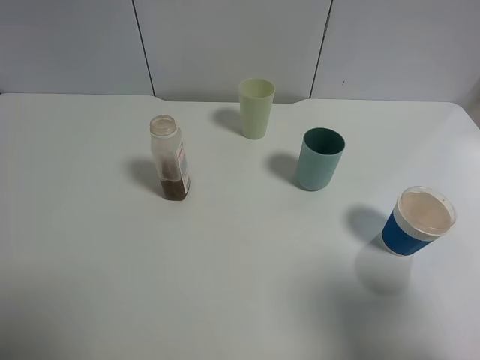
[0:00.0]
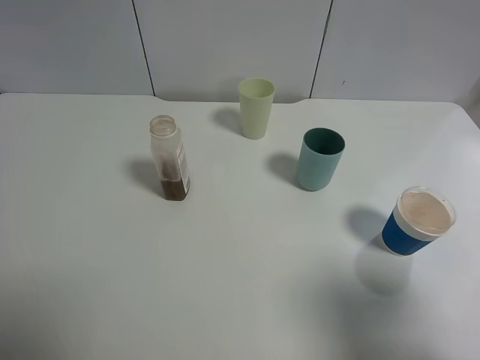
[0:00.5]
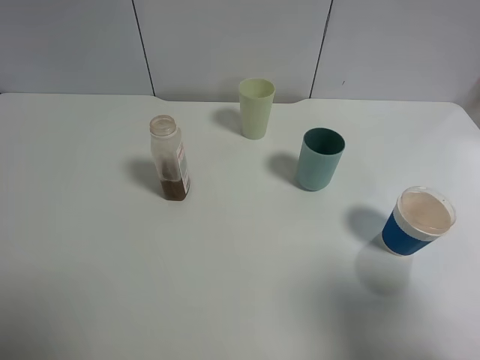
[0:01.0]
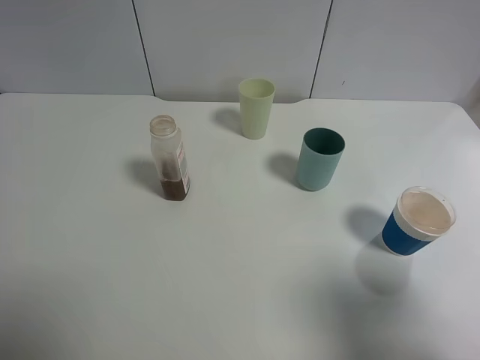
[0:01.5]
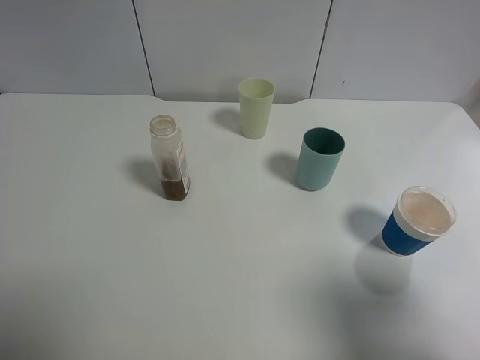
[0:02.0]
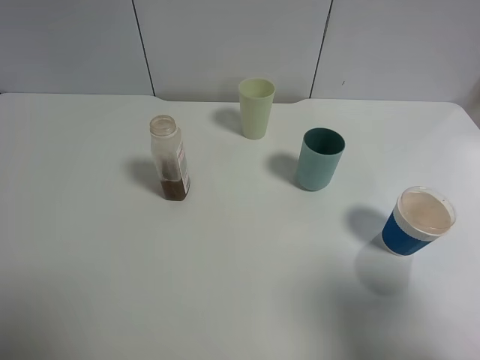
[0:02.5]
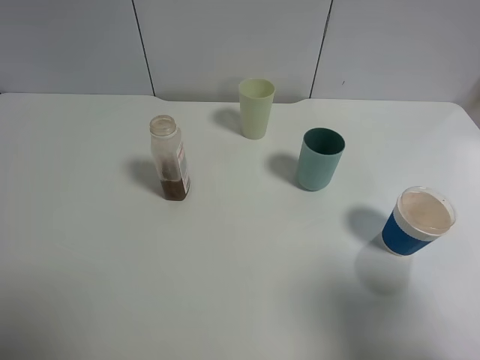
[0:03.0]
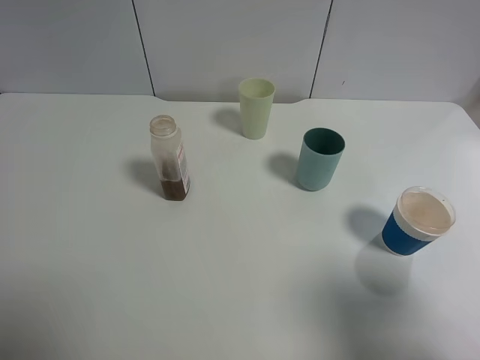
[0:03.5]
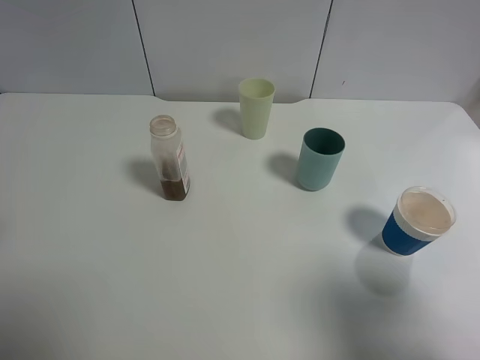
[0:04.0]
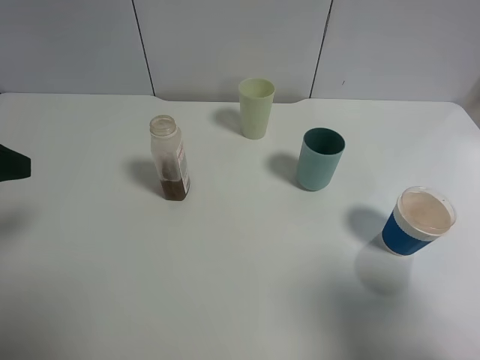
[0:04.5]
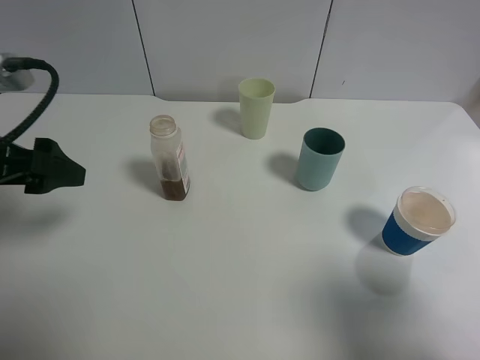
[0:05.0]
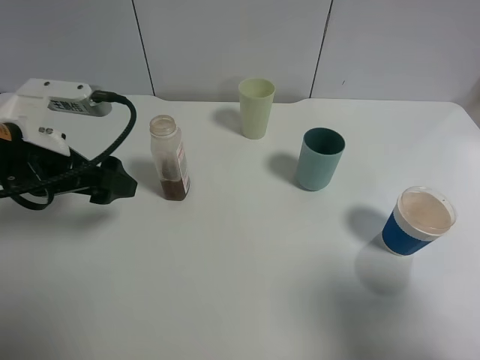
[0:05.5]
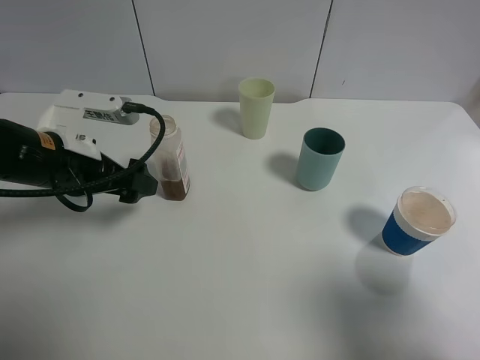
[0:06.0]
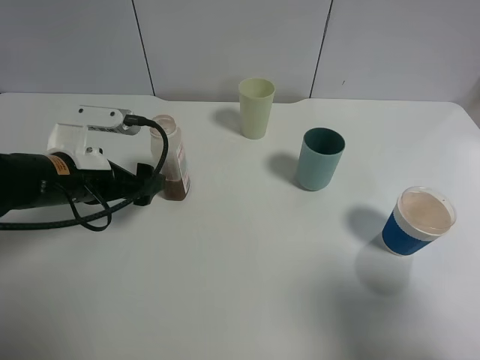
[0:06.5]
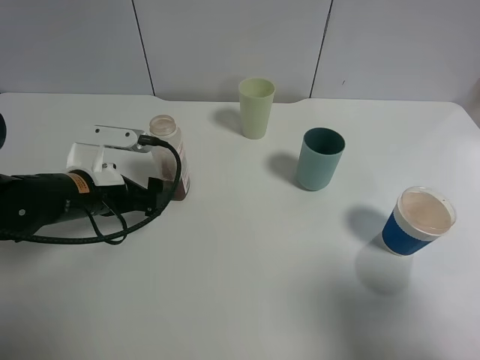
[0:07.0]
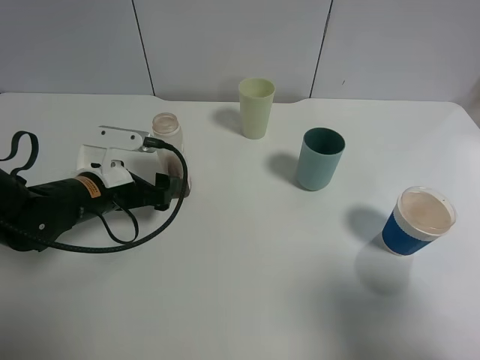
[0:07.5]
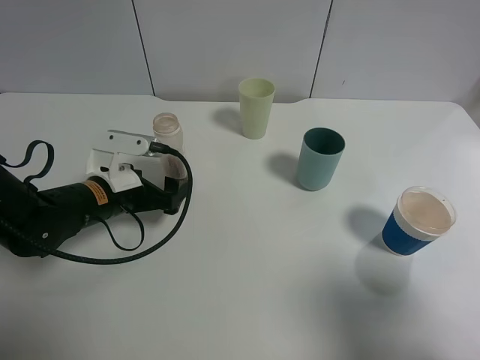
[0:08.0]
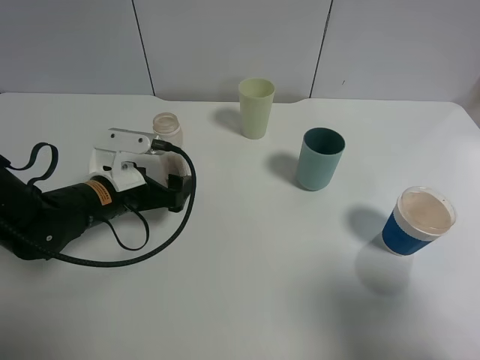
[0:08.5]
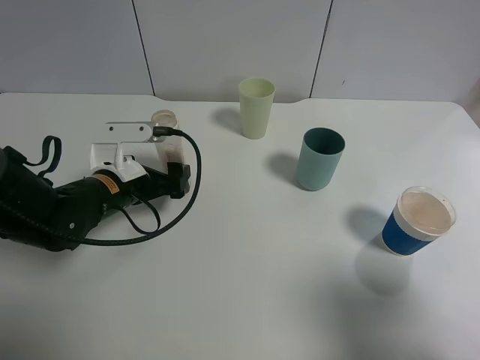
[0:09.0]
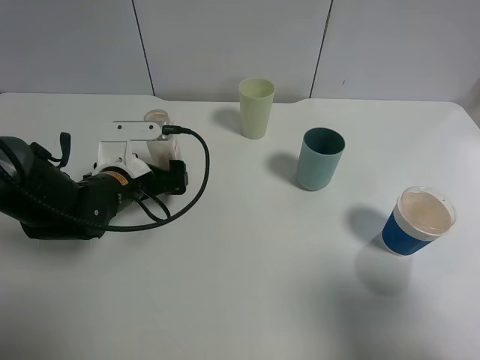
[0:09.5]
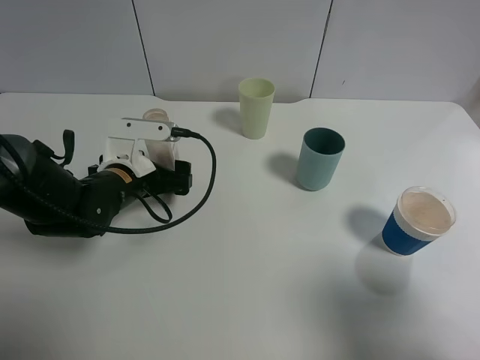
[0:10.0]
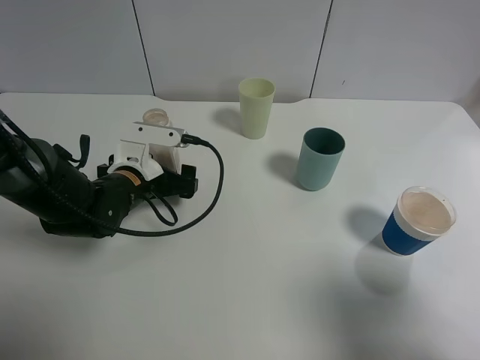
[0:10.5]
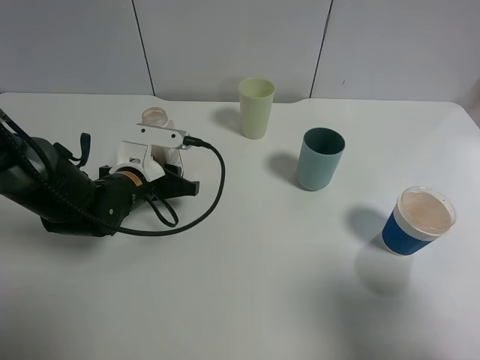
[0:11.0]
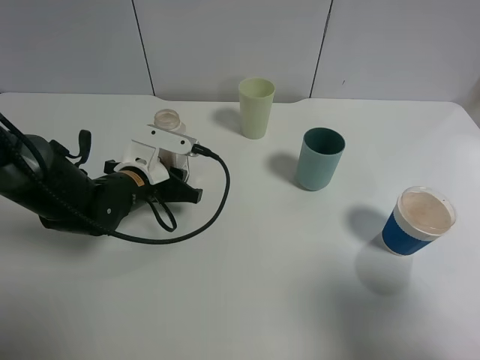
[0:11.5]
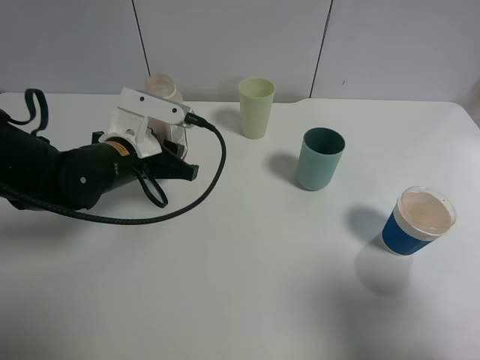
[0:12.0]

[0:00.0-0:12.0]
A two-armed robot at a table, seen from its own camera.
Task of the whole recording: use a gripper to hold the bottle of the drink and pour it into a random cup.
Step, 0:00.0 to 0:10.5: Grasp the cranberry juice bottle with the left gripper.
0:00.0 to 0:02.0: Neither gripper changes place.
0:04.0 to 0:06.0: The left gripper shifts some 20 cm forward, downward and to the right.
0:06.0 to 0:08.0: The left gripper is displaced downward by about 10 cm.
0:10.0 to 0:12.0: The left gripper travels upward by about 5 cm, and closes.

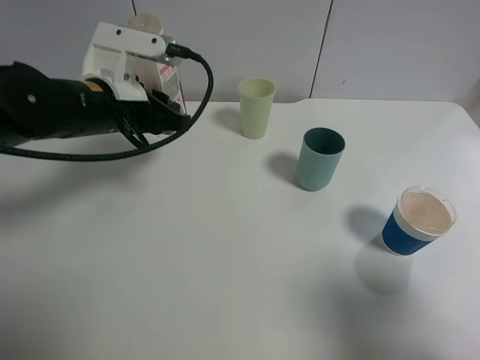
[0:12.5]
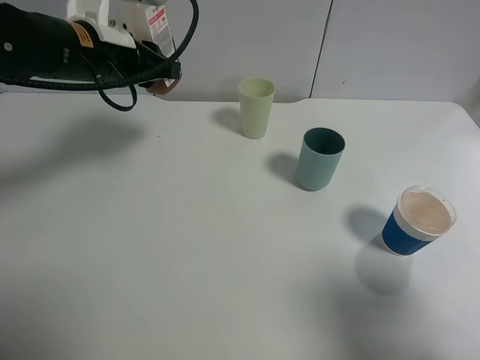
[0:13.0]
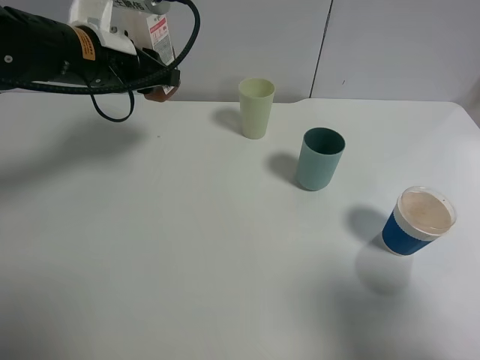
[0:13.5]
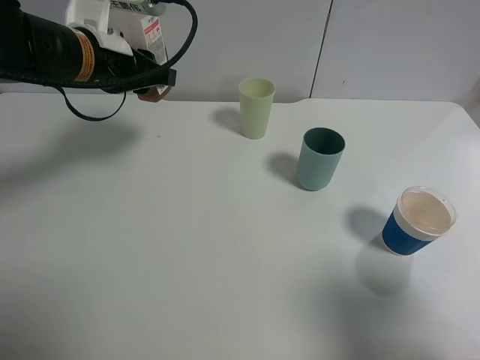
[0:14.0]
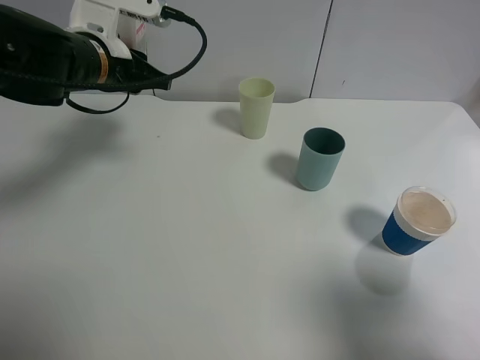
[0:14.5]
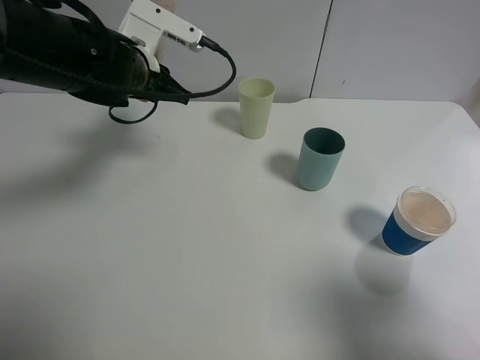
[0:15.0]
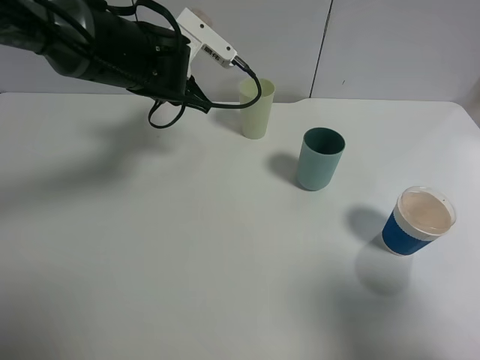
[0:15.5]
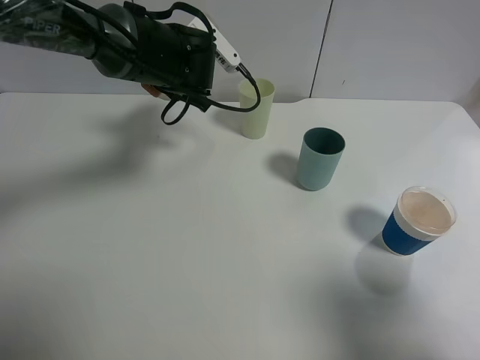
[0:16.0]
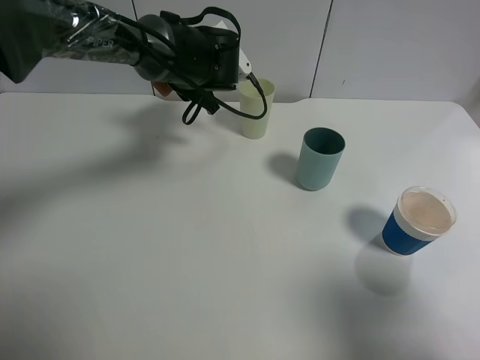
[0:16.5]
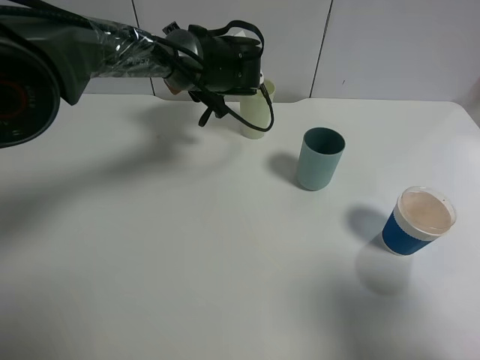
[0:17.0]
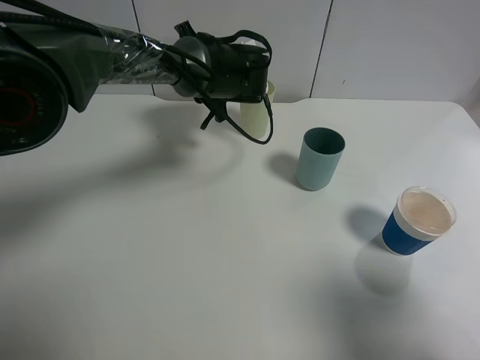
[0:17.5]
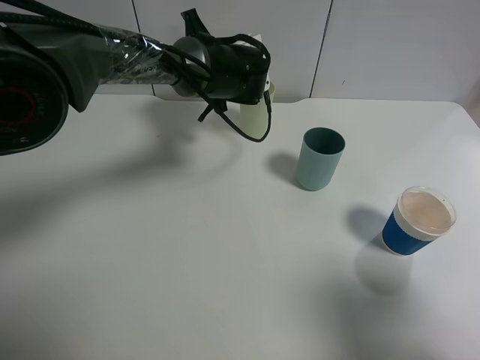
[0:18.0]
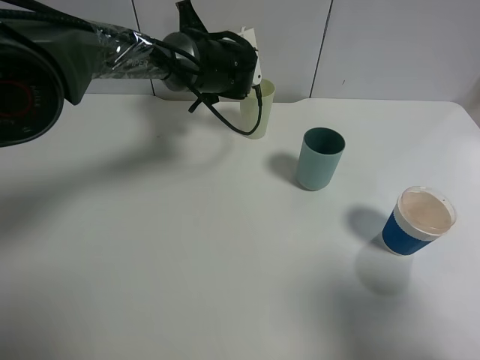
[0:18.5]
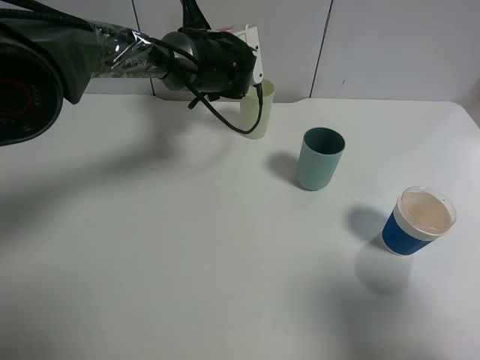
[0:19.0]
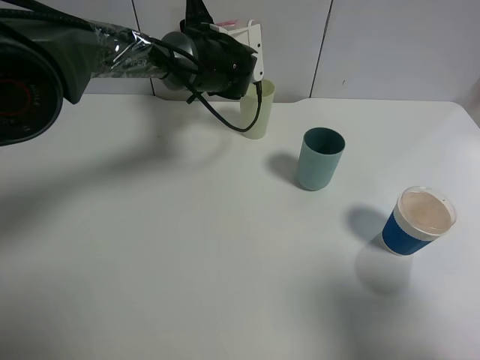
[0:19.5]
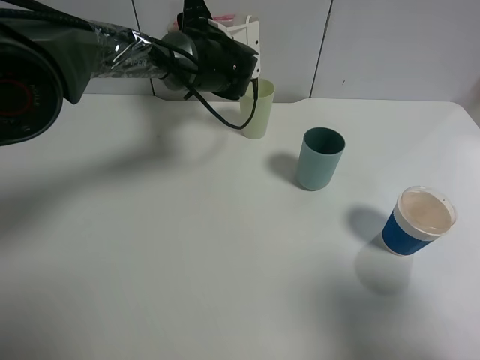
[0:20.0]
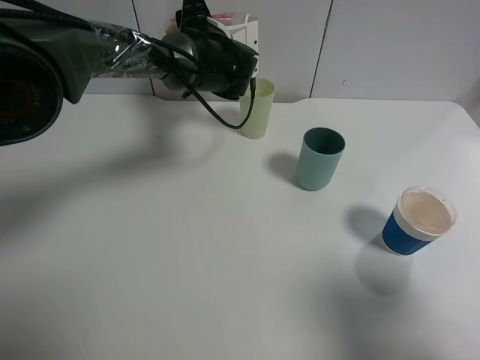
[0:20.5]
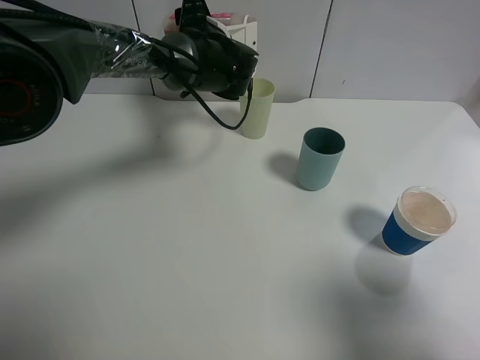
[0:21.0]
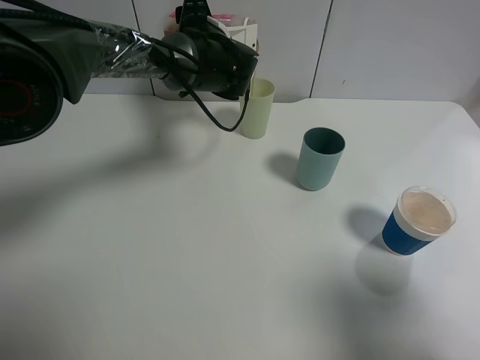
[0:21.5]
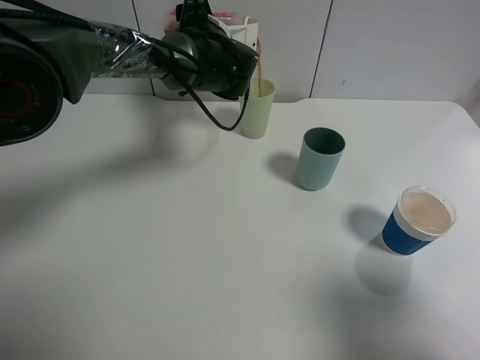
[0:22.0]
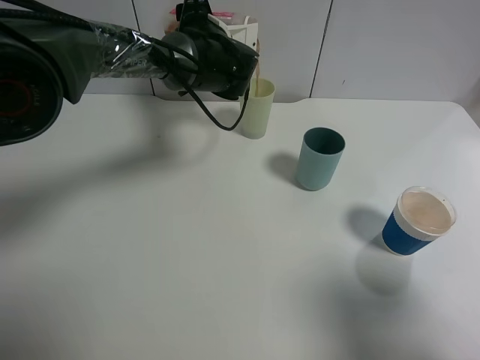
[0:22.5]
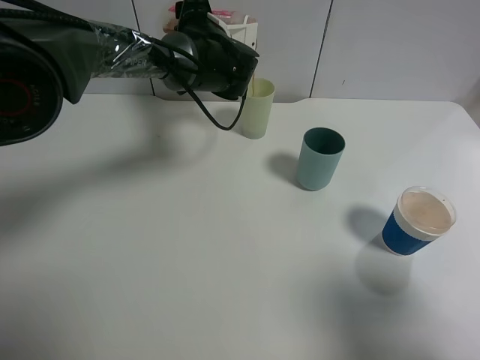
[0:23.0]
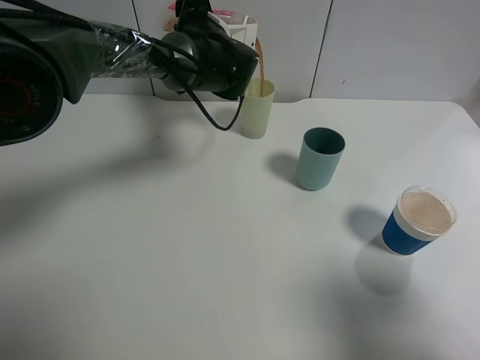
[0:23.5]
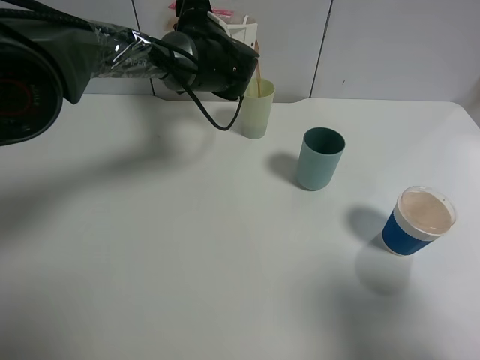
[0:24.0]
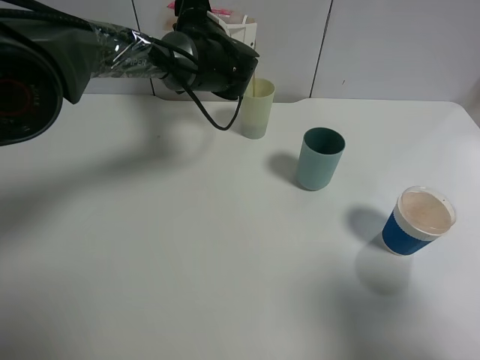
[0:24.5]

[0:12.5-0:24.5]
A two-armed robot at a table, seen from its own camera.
Task of the whole recording: use a gripper to hold the bottle of the drink and pour it into a random cup.
0:12.5 to 0:14.5: There are only small adjustments of the grippers.
0:14.5 to 0:16.5: The left gripper shifts roughly 15 cm to the right and forward.
0:18.5 to 0:20.5: There are only small adjustments of the grippers.
0:22.5 to 0:24.5: Neither gripper changes place.

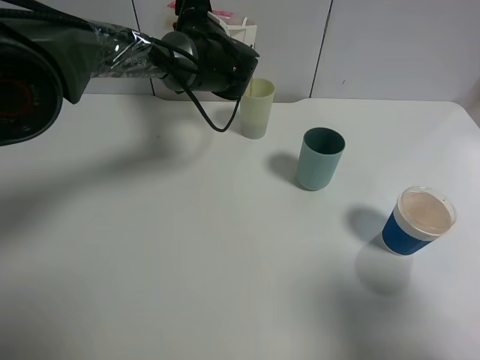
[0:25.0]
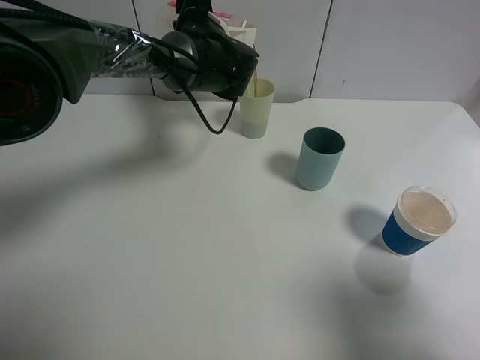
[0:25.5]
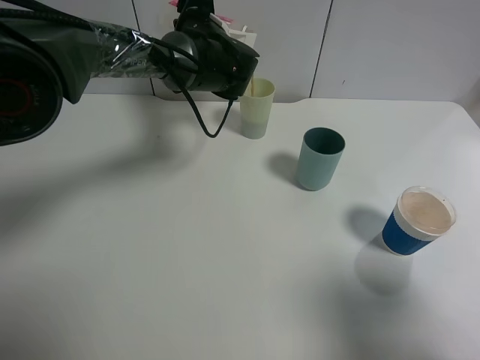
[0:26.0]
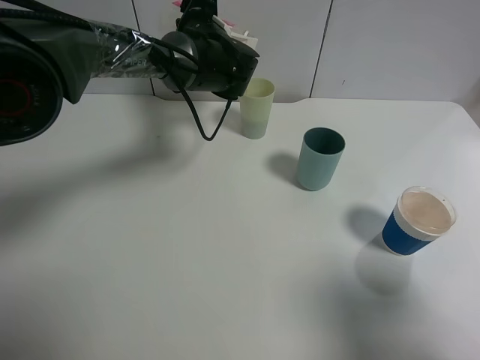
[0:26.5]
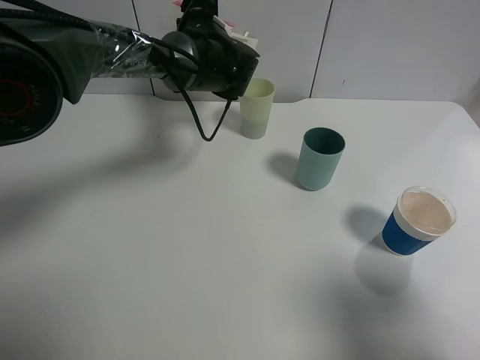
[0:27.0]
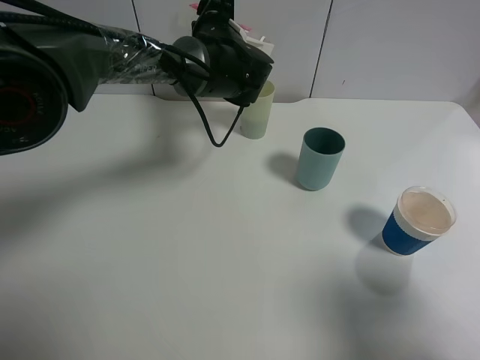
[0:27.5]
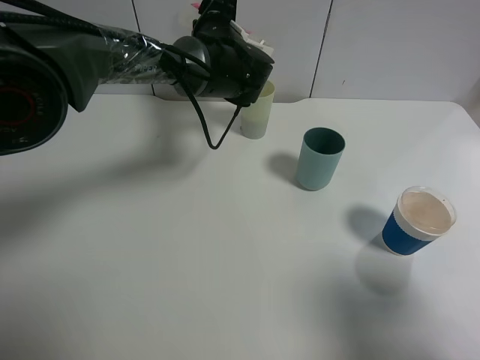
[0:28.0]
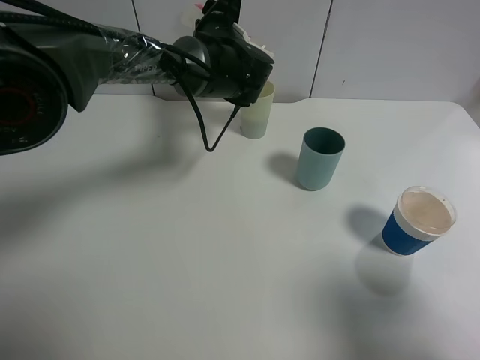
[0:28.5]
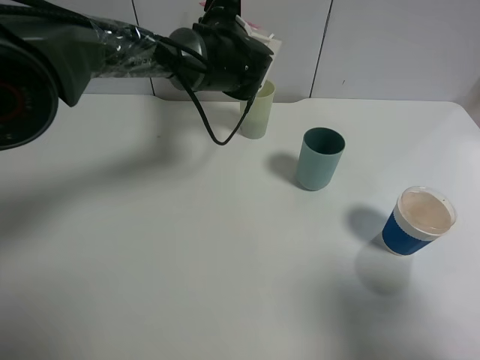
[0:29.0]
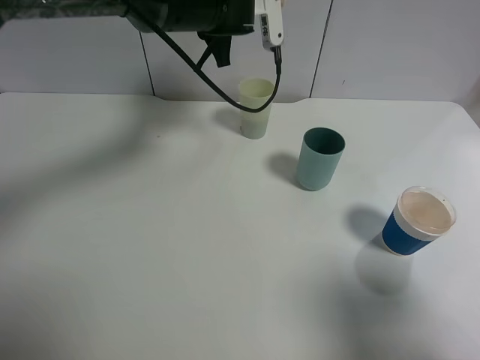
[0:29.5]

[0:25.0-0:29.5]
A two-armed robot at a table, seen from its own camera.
Task of the whole recording: use a gripper to hold the bottle of the drink and pour it into a random cup.
Step, 0:25.0 to 0:29.0: Pour the cranberry juice into the cyan cup with the left gripper.
0:25.0 to 0:27.0: The grippers make only small movements.
0:27.0 to 0:29.5: The left gripper moves upward, about 5 cm.
